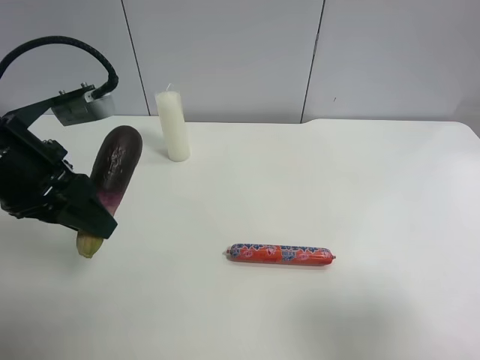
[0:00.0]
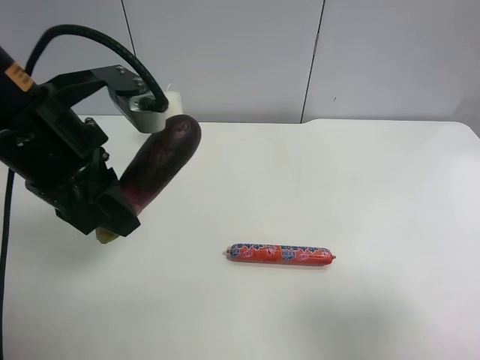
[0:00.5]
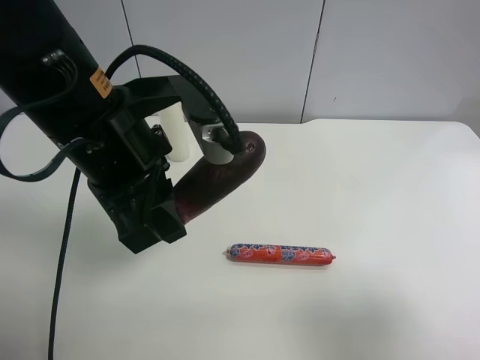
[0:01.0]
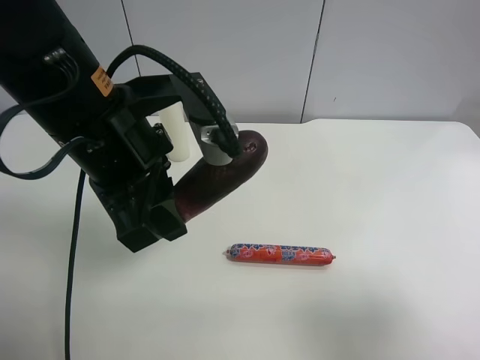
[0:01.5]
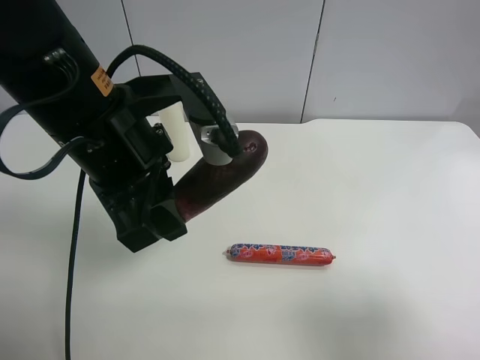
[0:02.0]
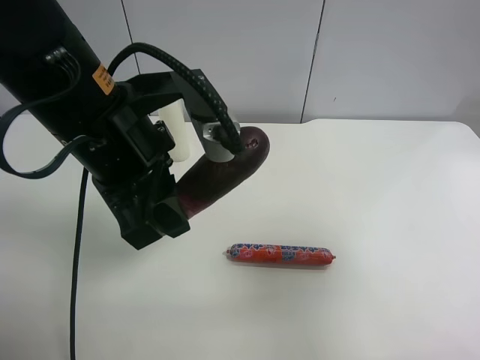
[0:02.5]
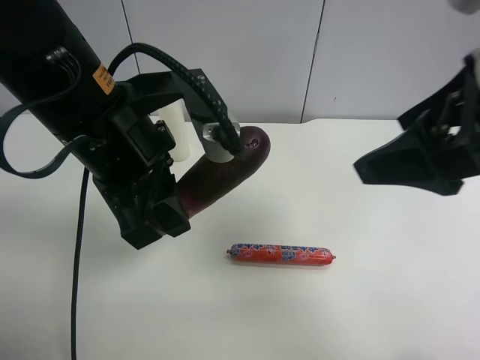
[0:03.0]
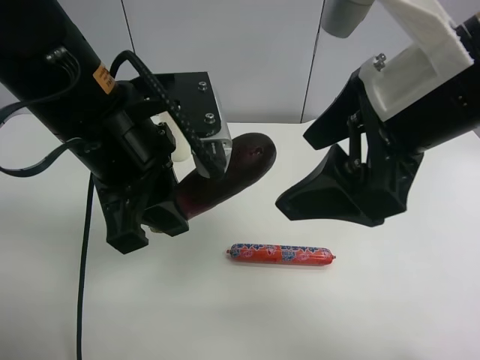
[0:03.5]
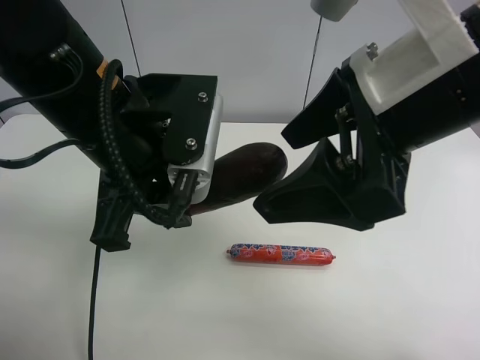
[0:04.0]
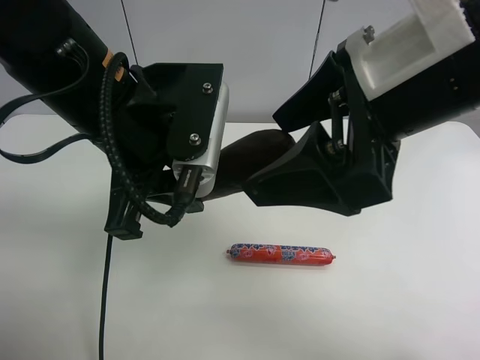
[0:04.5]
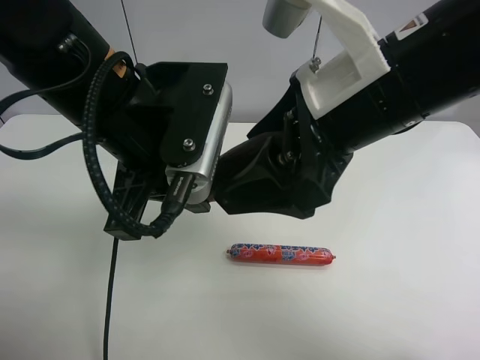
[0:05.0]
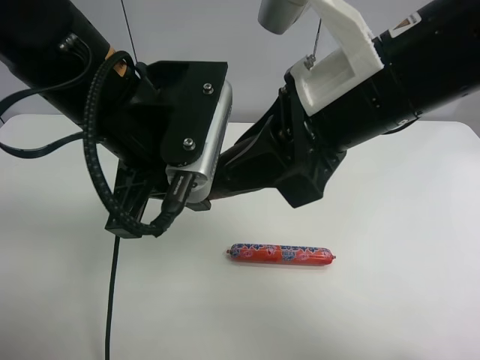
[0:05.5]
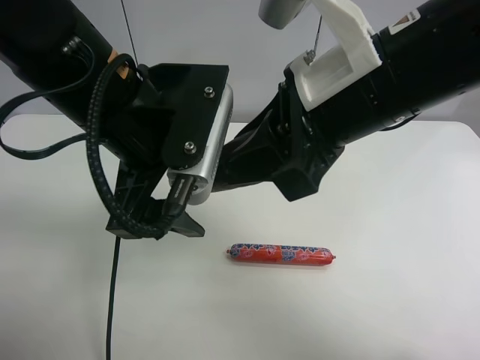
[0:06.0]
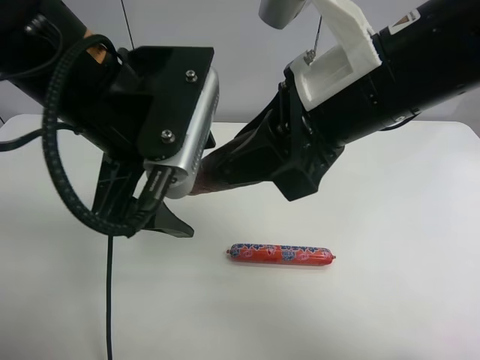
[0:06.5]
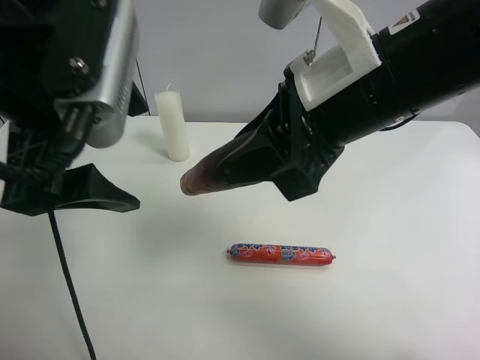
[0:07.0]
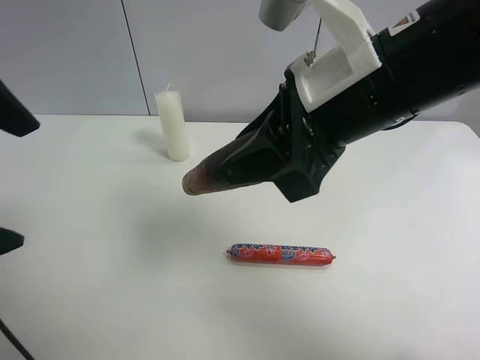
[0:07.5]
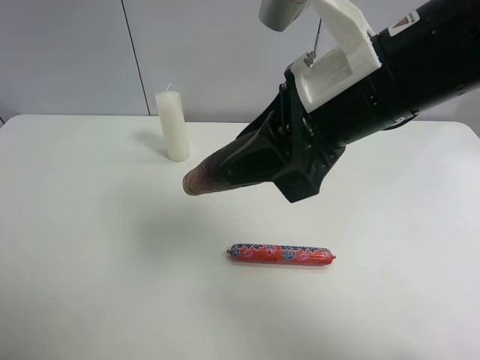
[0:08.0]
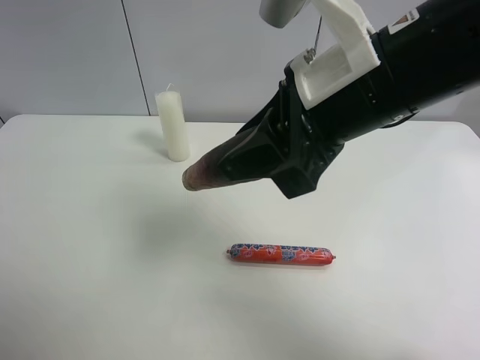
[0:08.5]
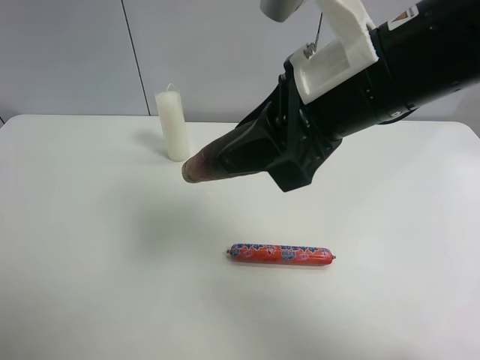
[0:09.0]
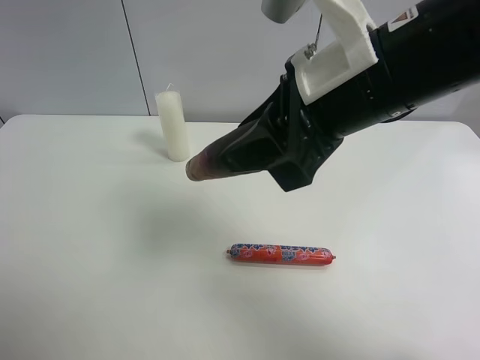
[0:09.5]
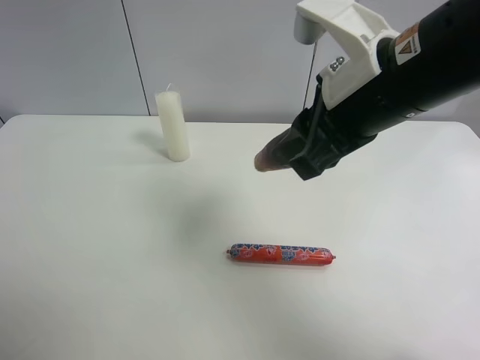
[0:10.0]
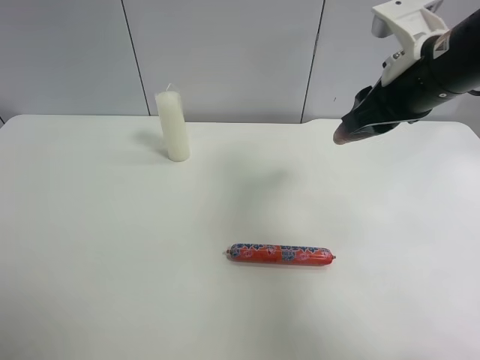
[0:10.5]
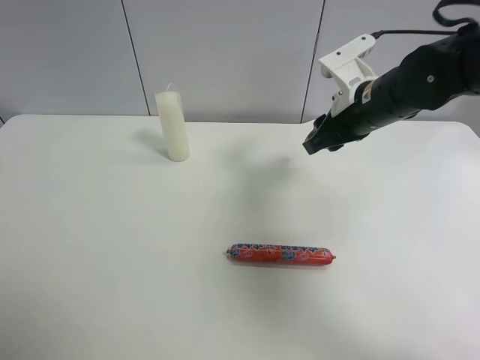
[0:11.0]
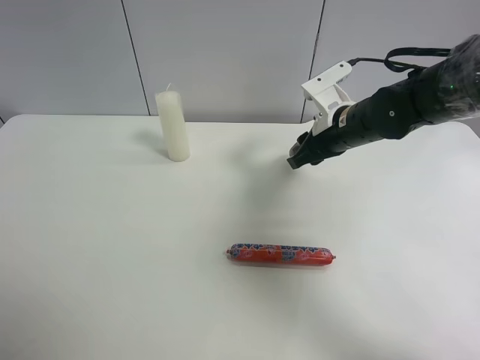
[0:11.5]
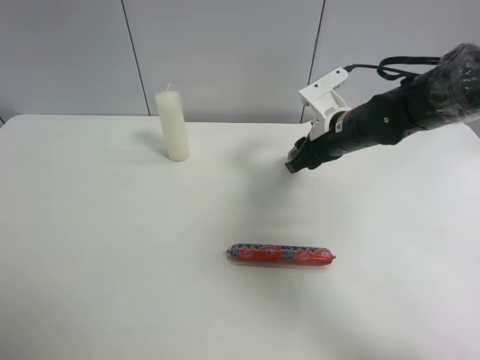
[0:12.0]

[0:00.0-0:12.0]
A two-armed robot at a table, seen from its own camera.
Task of the whole recording: use the left gripper to pick up the item and transfer it from the left gripper to the right gripper.
0:00.0 to 0:02.0: The left gripper travels to the right by roughly 10 cm.
0:02.0 to 0:04.0: The right gripper shifts roughly 25 cm to the left and forward.
0:04.0 to 0:06.0: The right gripper closes up. Meanwhile the left gripper opens its fingers.
0:06.0 to 0:08.0: The left gripper shifts some 25 cm to the left and backward.
0:08.0 to 0:10.0: The left gripper travels to the left by approximately 5 cm.
0:10.0 to 0:12.0: The right gripper shifts approximately 20 cm downward and forward.

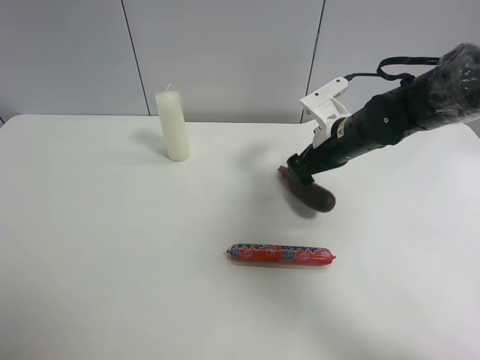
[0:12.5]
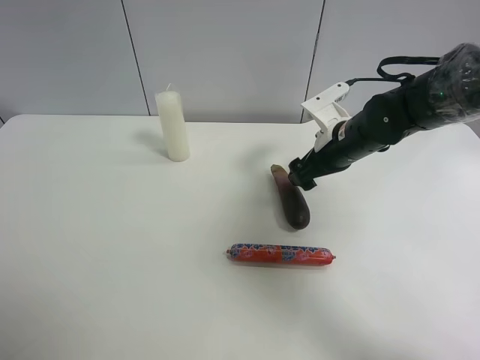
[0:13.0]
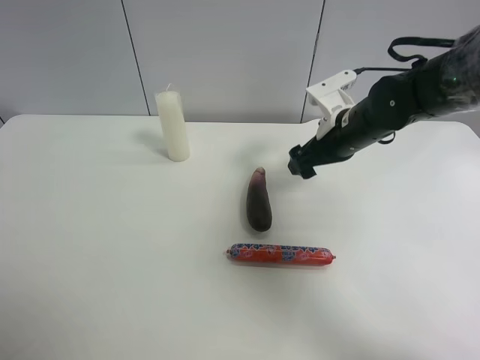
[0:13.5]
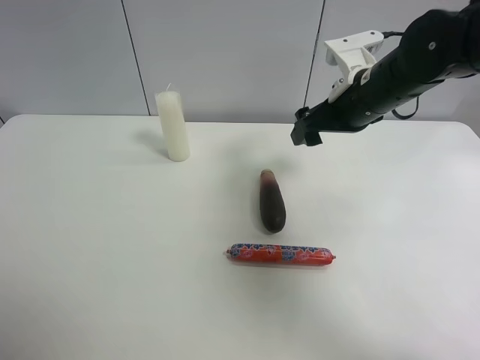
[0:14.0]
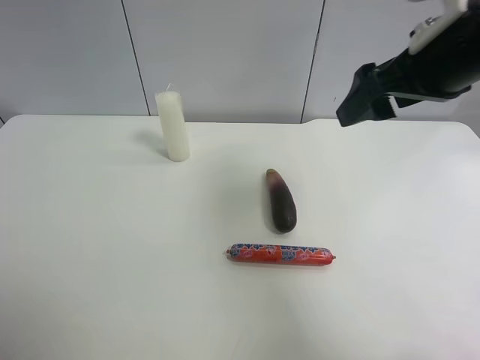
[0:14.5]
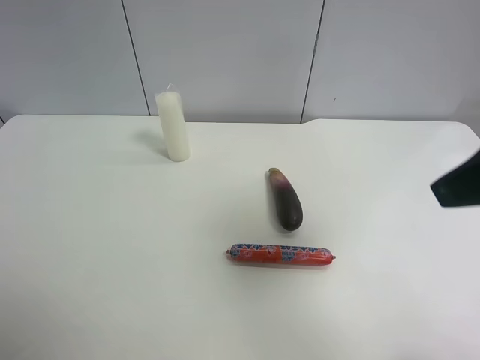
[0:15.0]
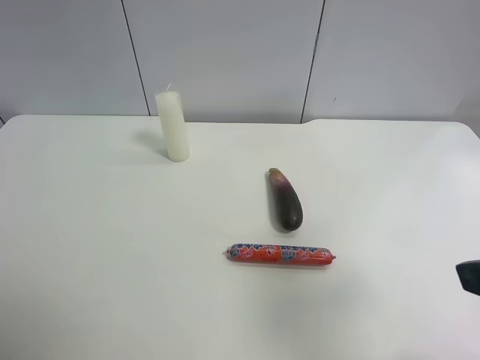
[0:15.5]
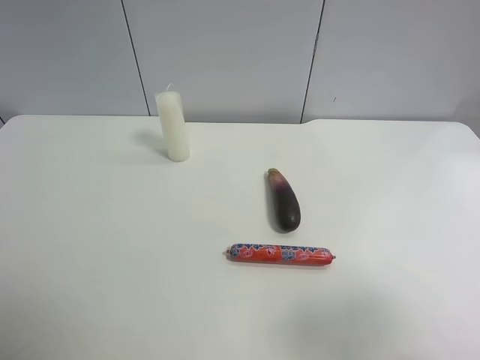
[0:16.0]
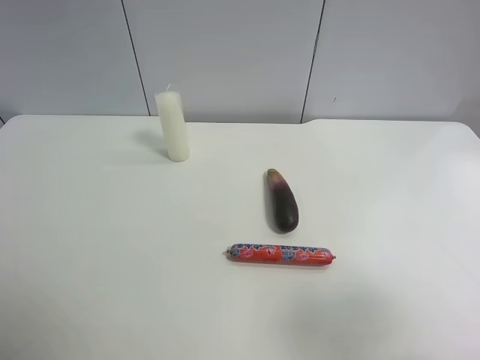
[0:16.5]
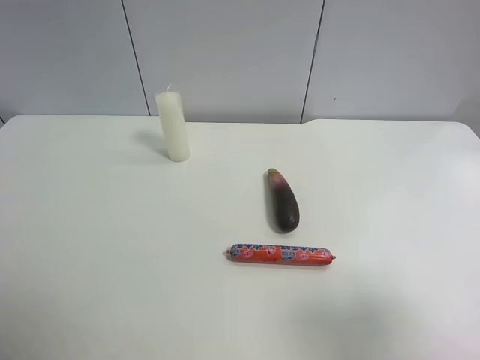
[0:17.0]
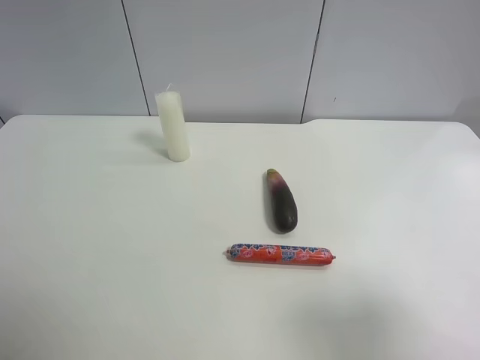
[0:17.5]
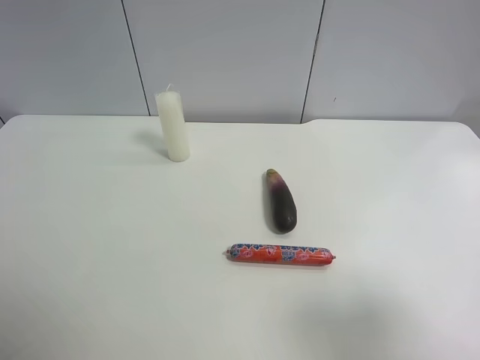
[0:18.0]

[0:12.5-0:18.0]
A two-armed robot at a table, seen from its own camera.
Task of the whole recording: use the left gripper to pick up the item and transfer it from the left gripper to the right gripper.
0:12.5 to 0:14.5: The right gripper heads upward and backward, covering about 20 cm.
0:14.5 to 0:16.0: The right gripper is displaced backward by approximately 25 cm.
